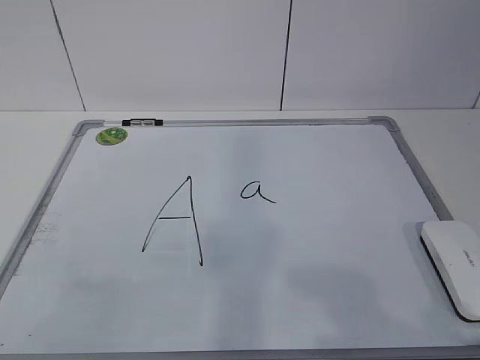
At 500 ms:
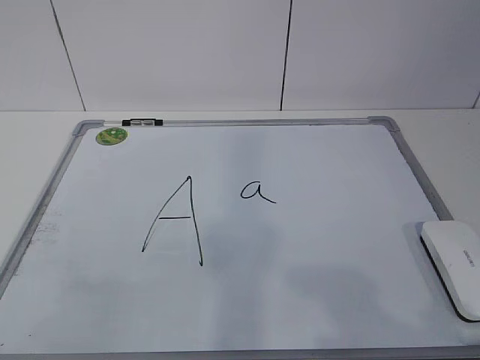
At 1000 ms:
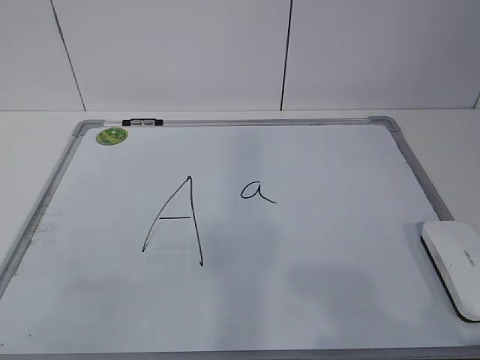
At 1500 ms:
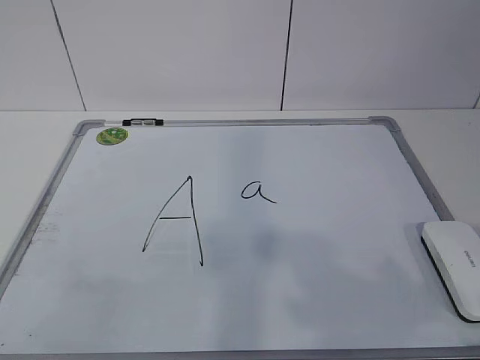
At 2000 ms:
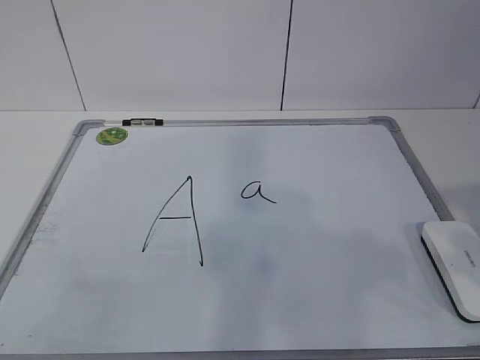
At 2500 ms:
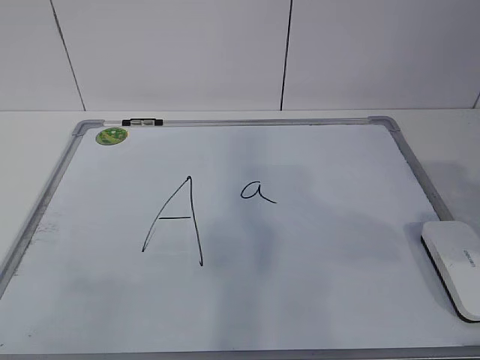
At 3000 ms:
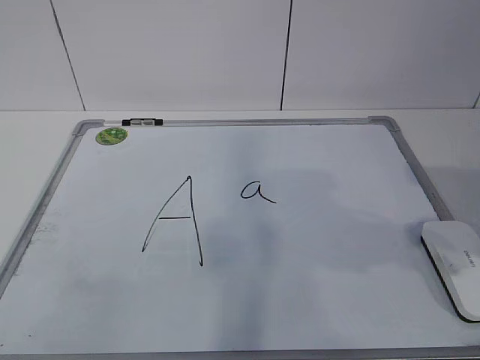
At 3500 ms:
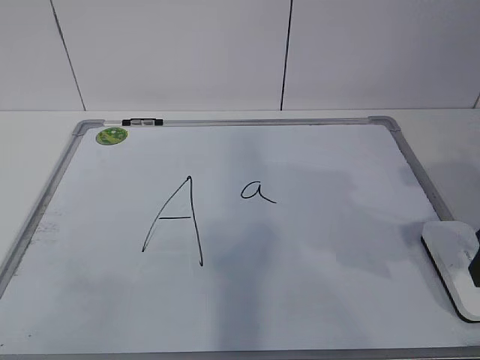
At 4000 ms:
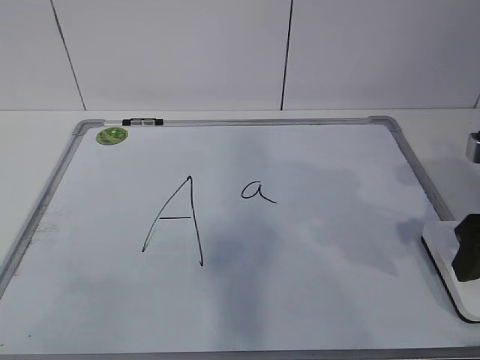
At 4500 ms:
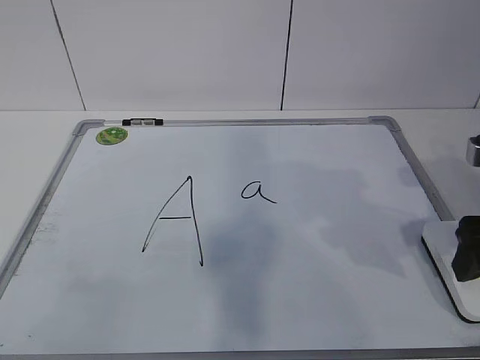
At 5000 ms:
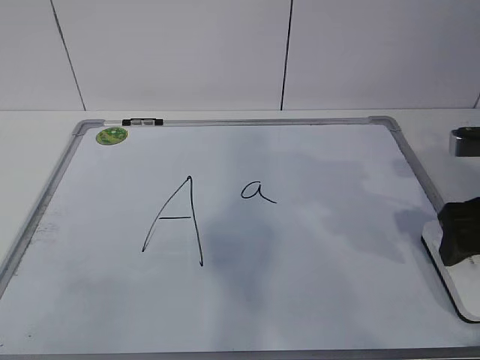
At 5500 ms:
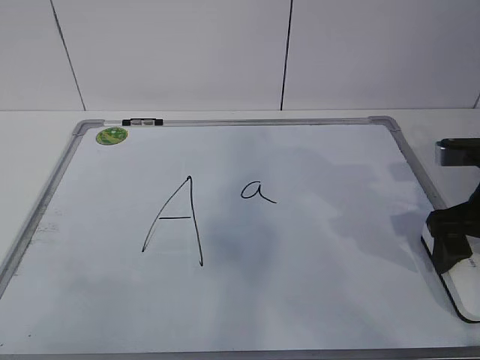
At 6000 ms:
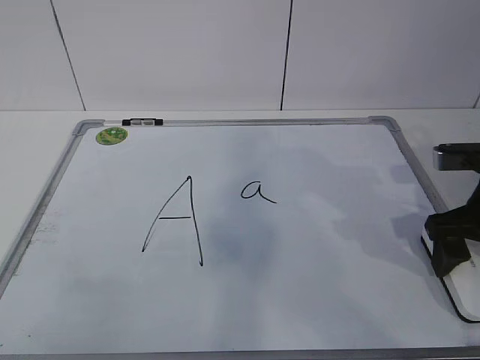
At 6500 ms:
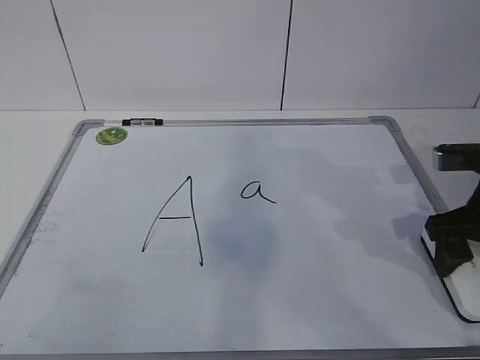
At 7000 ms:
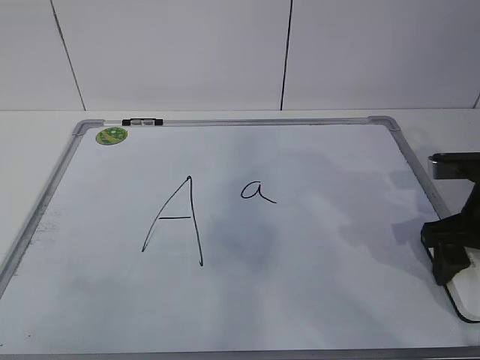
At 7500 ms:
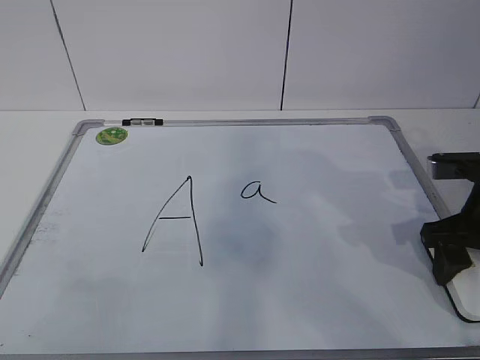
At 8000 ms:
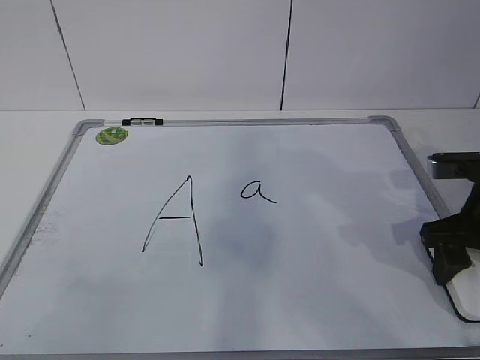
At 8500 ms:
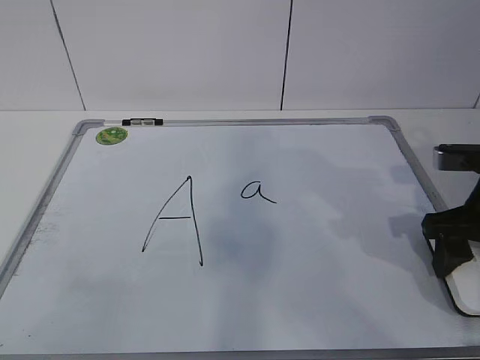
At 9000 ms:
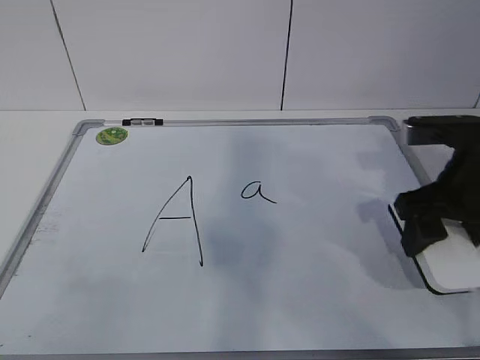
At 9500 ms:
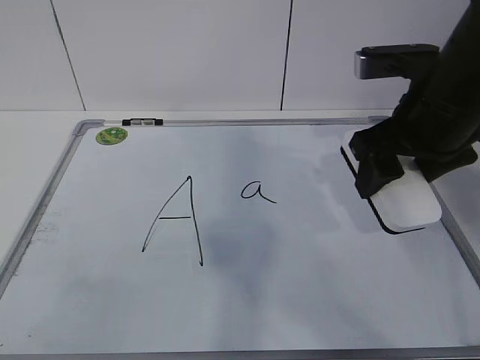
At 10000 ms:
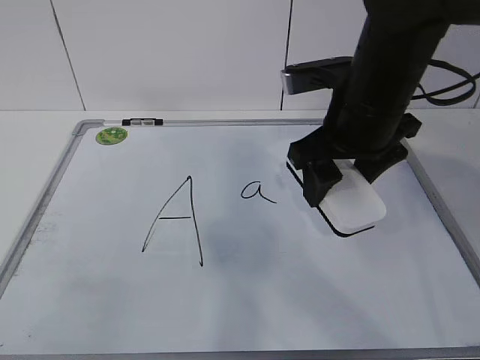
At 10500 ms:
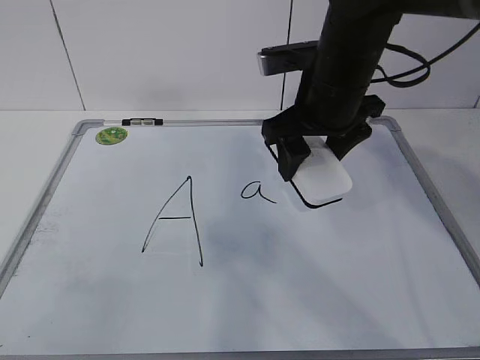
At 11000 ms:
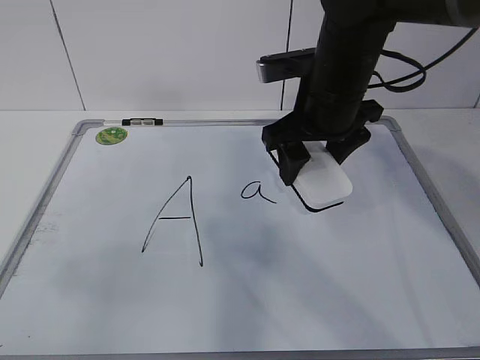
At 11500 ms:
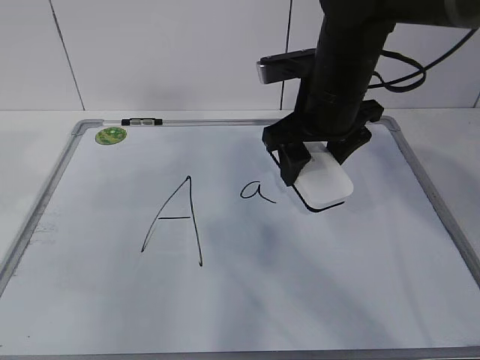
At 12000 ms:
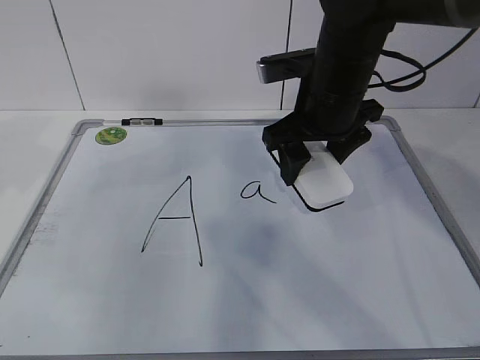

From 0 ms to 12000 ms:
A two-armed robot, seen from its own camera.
Task of the whole recording: pick up the eraser on the blackboard and erase the letter "a".
Step, from 0 ms to 5500 ms: Grab the eraser with your right hand.
Step, from 6000 ms to 11500 ms: Hold the drawing board steady with your left hand.
From 2000 ms to 4000 ms: The right gripper travels forward and downward by some 15 cm.
From 4000 ms to 6000 ms: The right gripper is displaced forward by approximately 5 cm, and opens its fingers.
From 6000 ms to 8000 ms: The right gripper closes.
From 8000 ms to 10000 ms: The right gripper moves to the left and upward, approximately 15 cm.
From 10000 ms to 12000 ms: The left gripper is displaced forward by some 25 cm.

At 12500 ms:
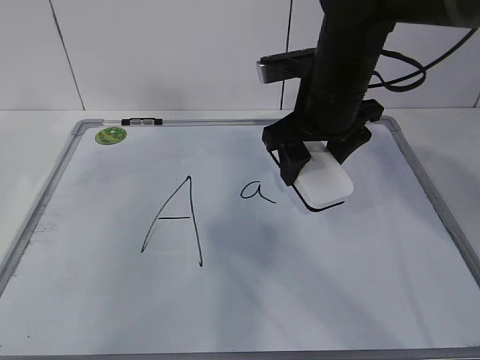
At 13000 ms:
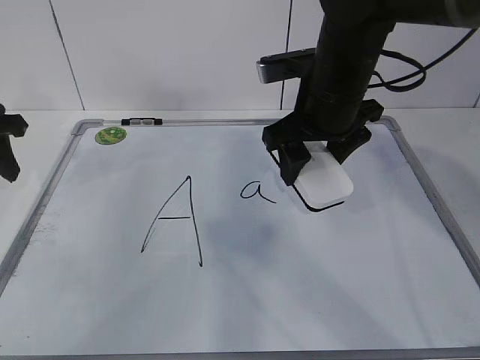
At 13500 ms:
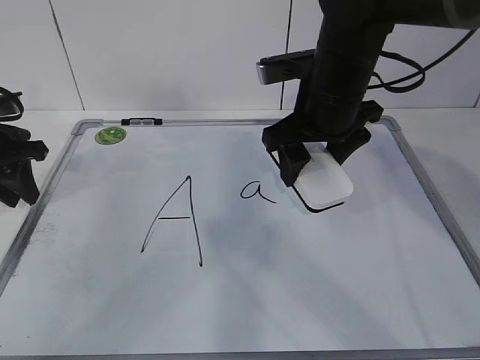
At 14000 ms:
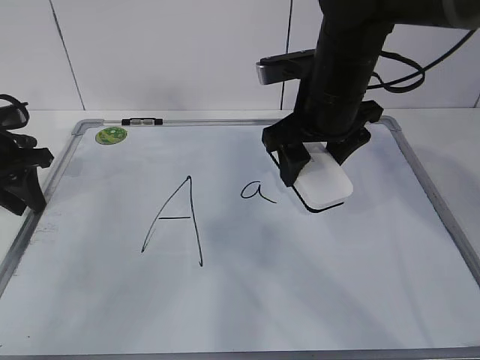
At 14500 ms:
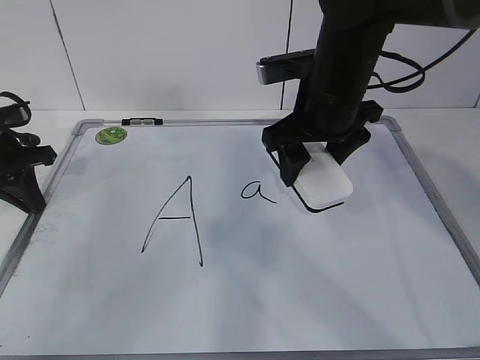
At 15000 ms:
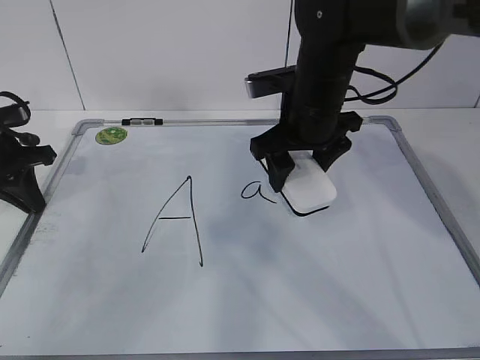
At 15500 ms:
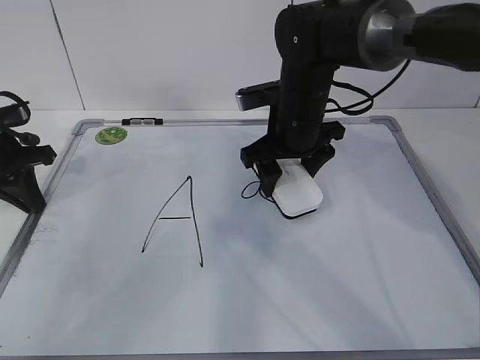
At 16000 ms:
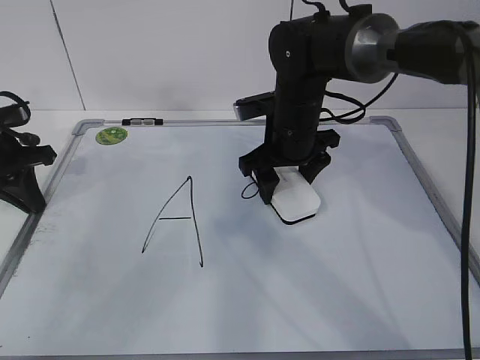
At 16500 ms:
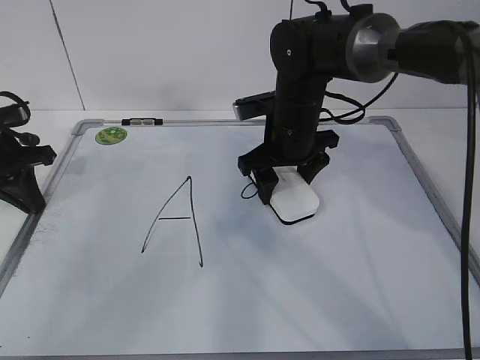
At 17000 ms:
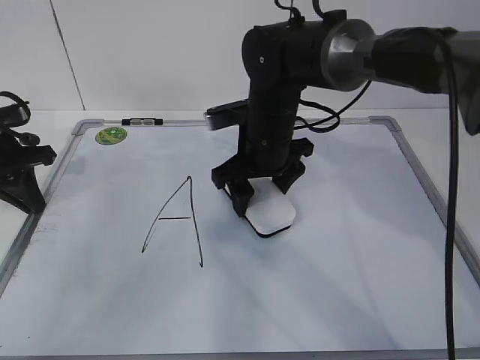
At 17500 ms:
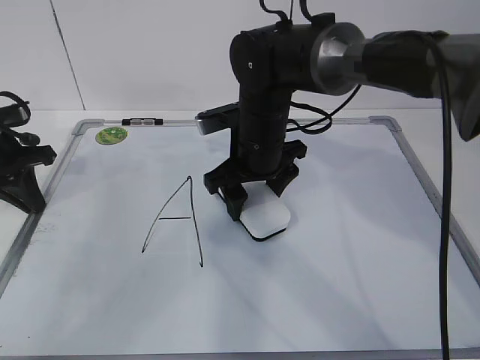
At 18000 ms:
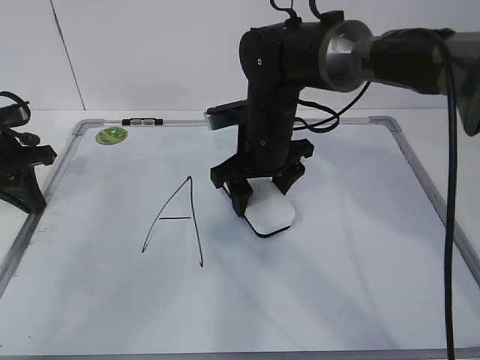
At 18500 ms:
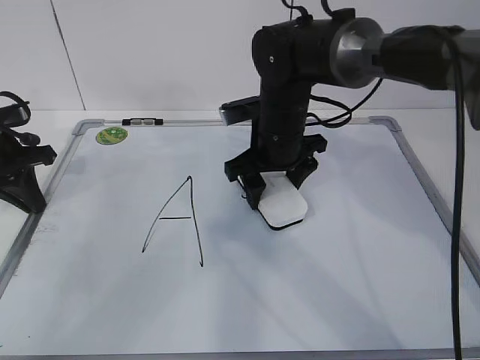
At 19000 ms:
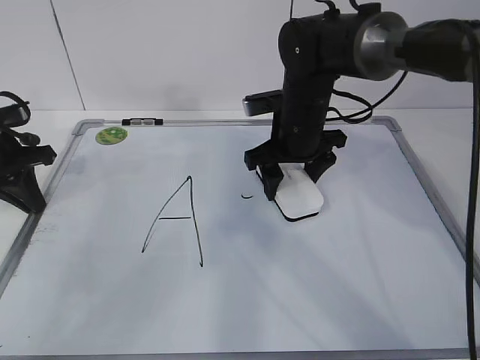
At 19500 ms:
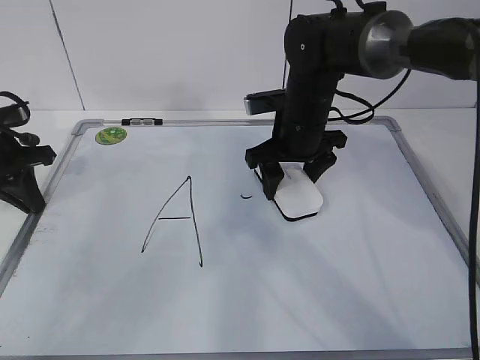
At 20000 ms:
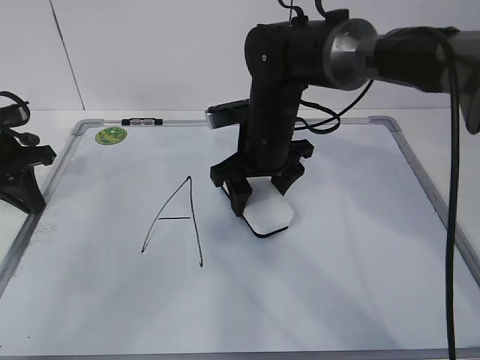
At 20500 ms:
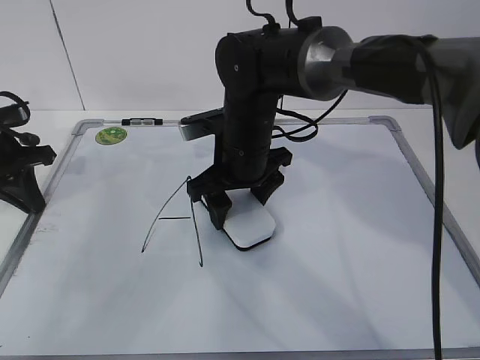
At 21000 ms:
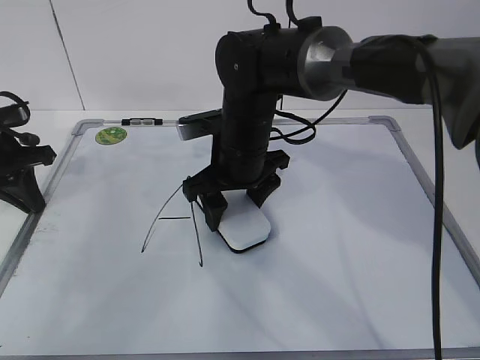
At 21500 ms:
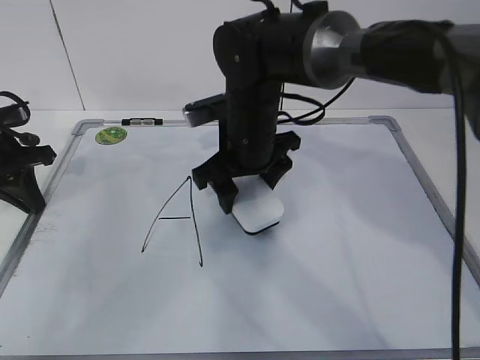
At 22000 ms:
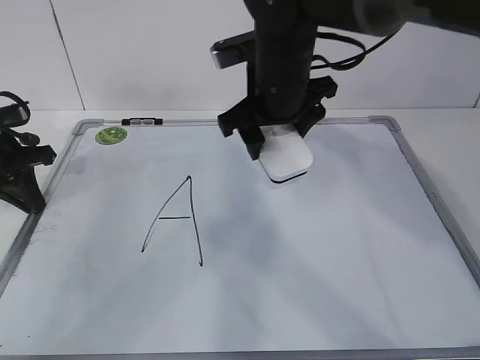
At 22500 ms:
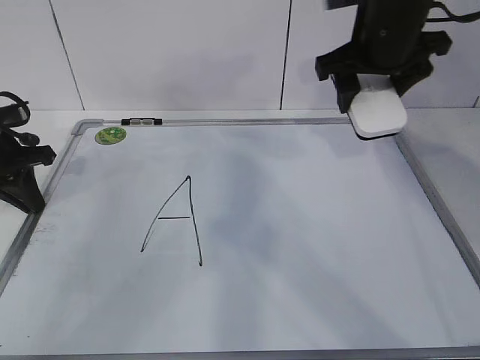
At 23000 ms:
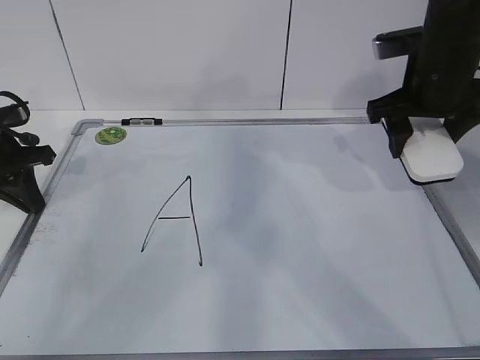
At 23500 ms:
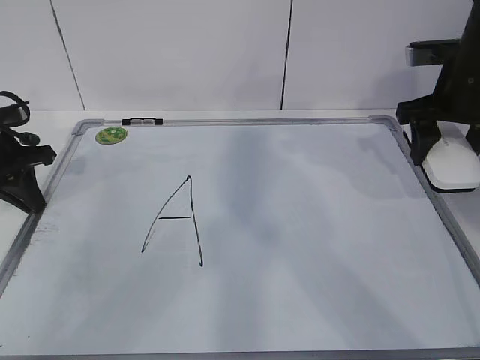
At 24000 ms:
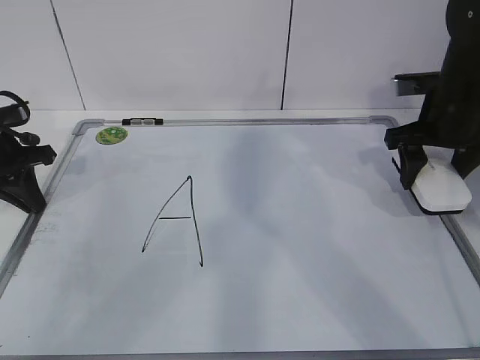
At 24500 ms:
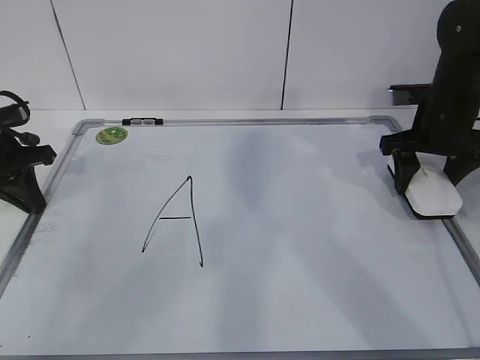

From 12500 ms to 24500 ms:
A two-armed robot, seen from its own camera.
Task of the whole recording: pick up the eraser on the blackboard and erase the letter "a".
Step, from 12500 ms to 17500 ms: Erase the letter a with your right hand.
Step, from 18000 ms to 22500 ms: Put down the eraser with your right hand.
From 12500 ms to 14500 ms: The left gripper moves downward and forward, some 15 cm, and closes up.
From 14500 ms to 16500 ms: The right gripper goes some 10 cm downward and forward.
From 16500 ms to 18500 ms: The grippers move only a little.
From 18500 ms to 20500 ms: The right gripper ends up about 5 cm from where it was.
From 20500 ms to 22500 ms: The right gripper goes some 20 cm to the right and upward.
From 22500 ms to 24500 ms: The right gripper goes some 15 cm downward and to the right.

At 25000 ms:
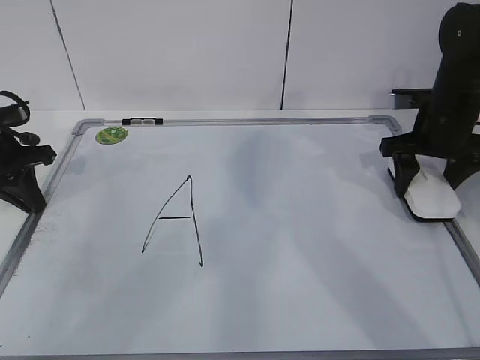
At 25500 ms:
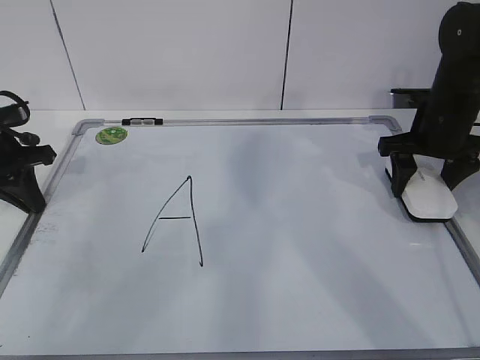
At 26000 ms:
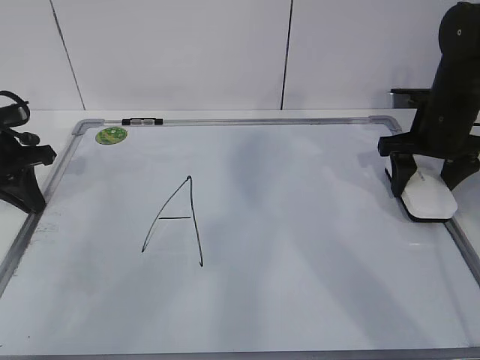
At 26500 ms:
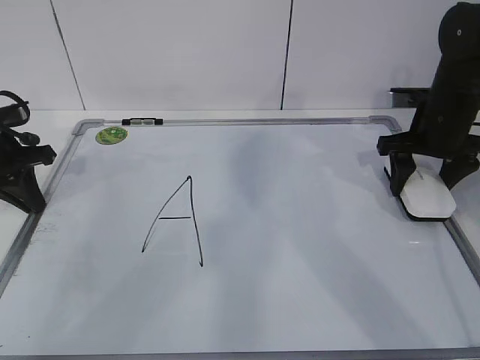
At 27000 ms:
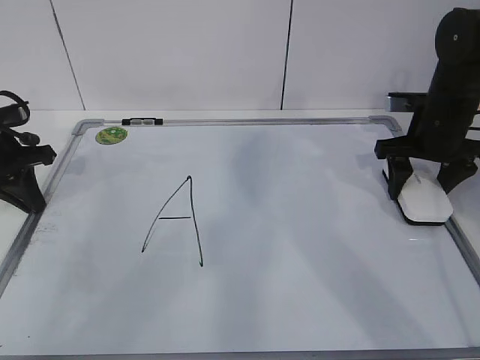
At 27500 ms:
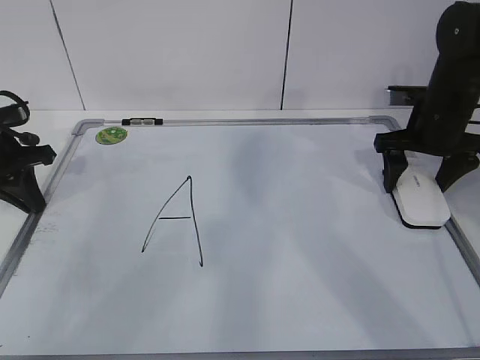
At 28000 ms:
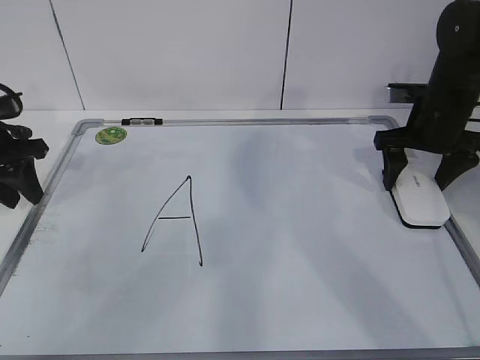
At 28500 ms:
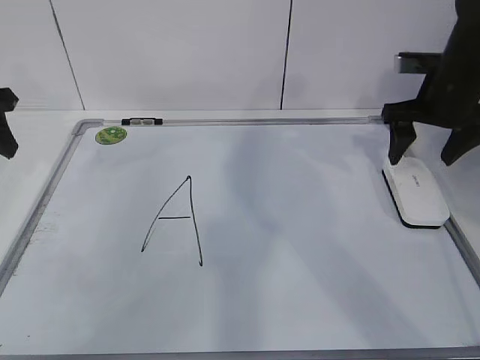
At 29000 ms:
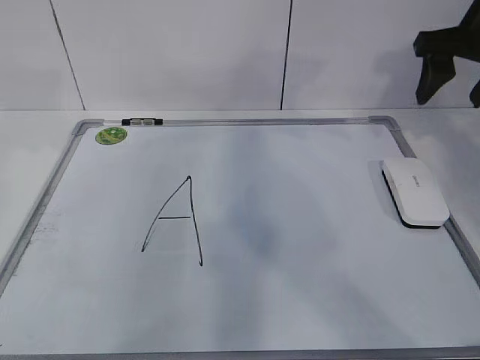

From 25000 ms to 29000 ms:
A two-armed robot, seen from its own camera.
Task of the whole recording: pick up the eraser on the blackboard and erase the letter "a".
From 25000 ms to 27000 ms: The two grippers keep their place.
From 27000 ms to 29000 ms: The right gripper moves upward, roughly 15 cm, and opens and closes again. The left gripper moves upward and backward, roughly 20 cm, and opens its fingers.
